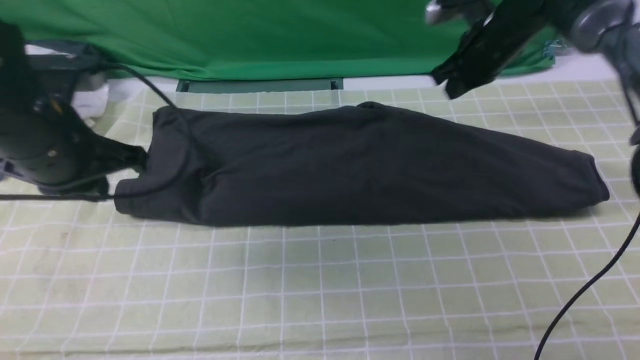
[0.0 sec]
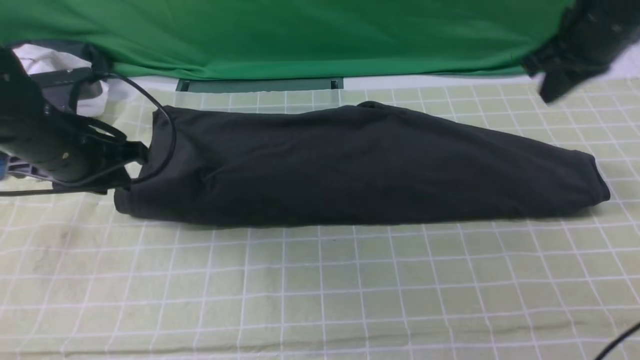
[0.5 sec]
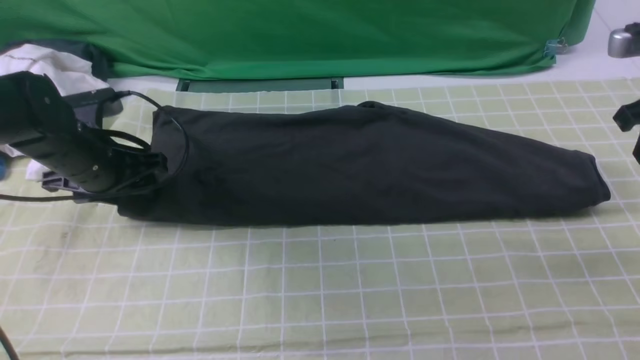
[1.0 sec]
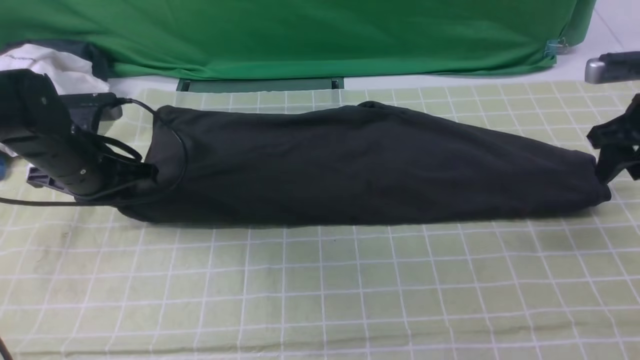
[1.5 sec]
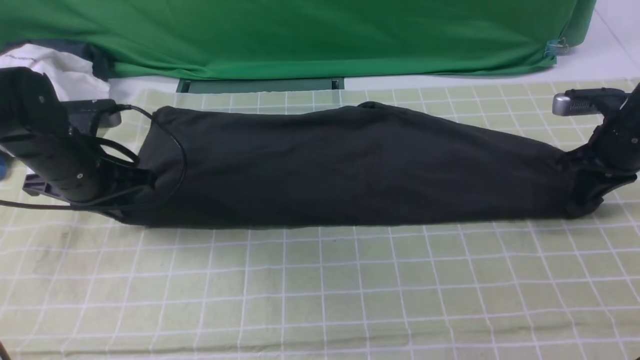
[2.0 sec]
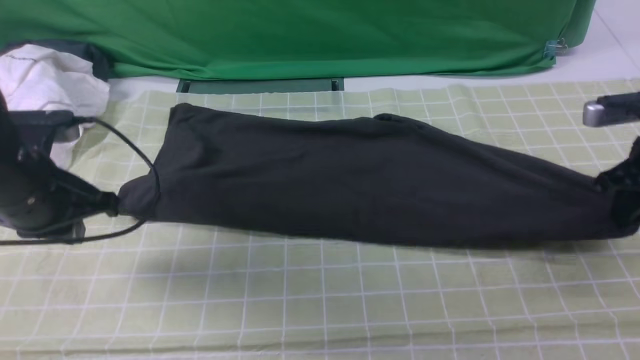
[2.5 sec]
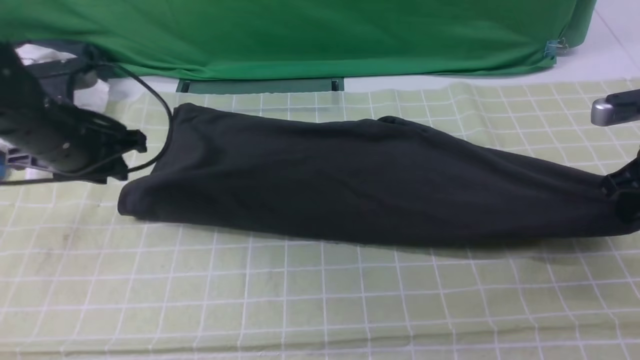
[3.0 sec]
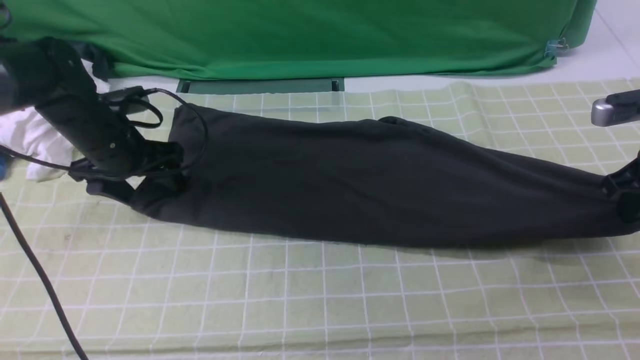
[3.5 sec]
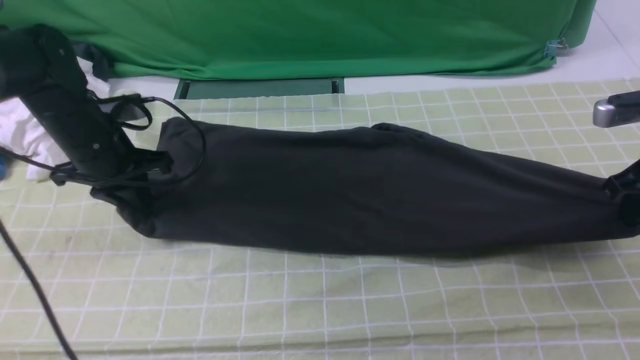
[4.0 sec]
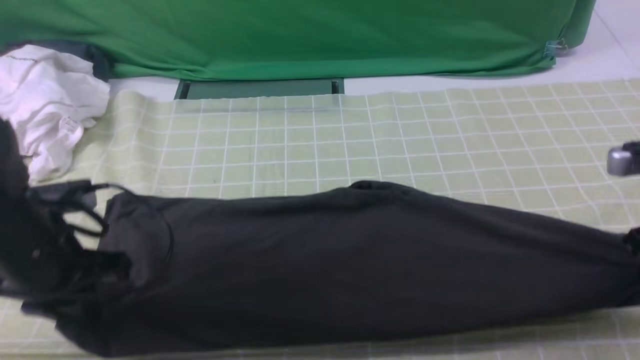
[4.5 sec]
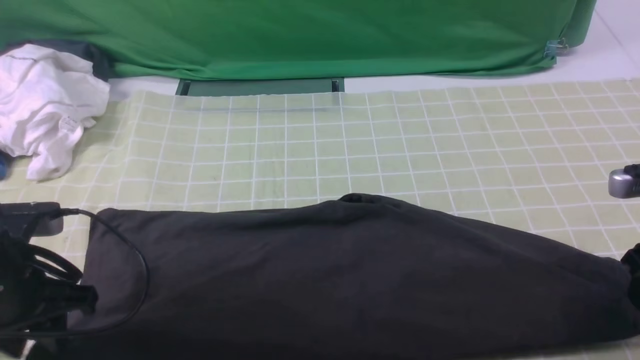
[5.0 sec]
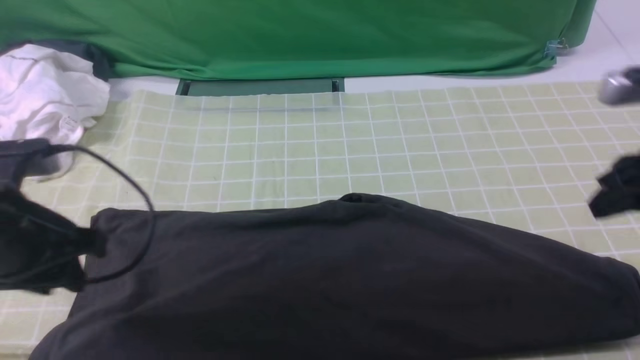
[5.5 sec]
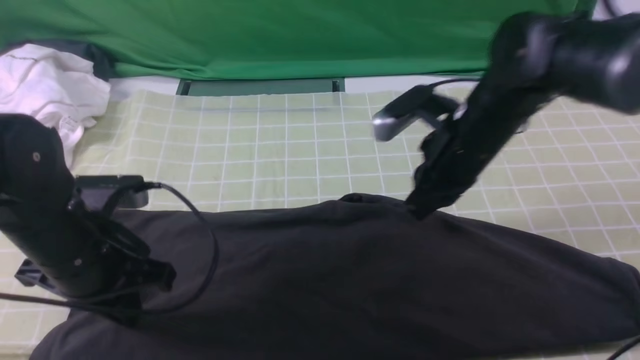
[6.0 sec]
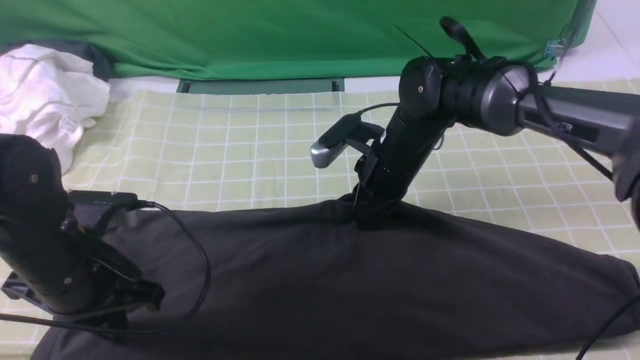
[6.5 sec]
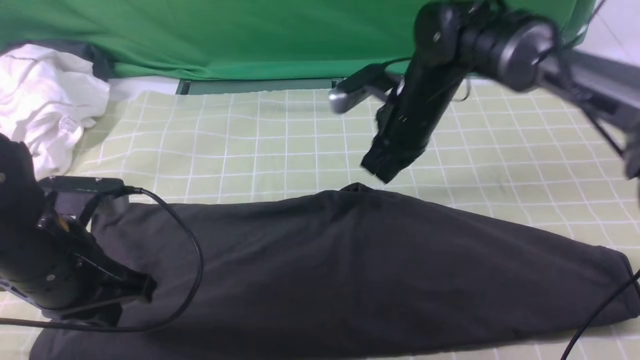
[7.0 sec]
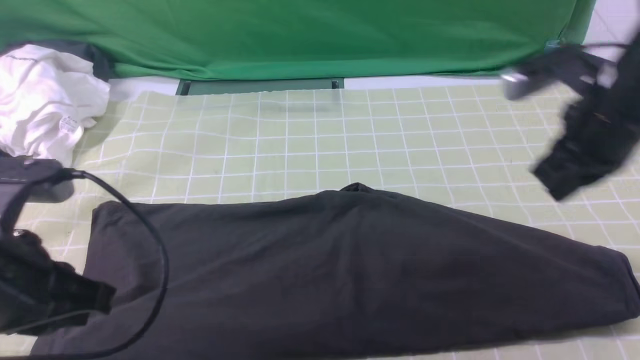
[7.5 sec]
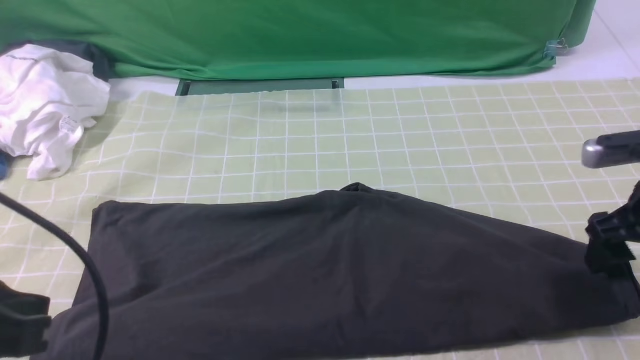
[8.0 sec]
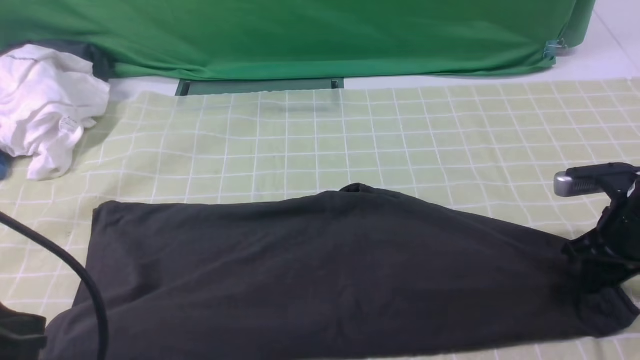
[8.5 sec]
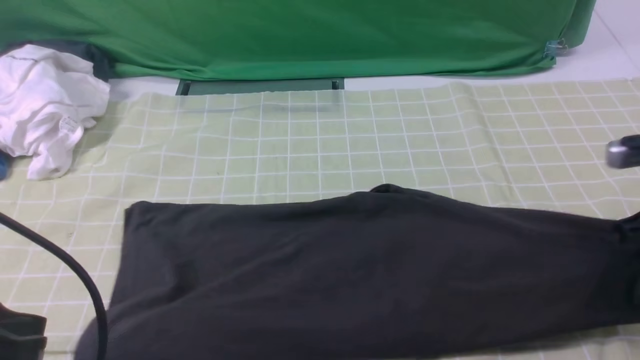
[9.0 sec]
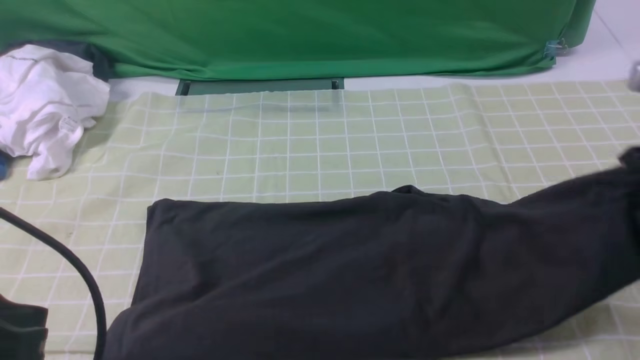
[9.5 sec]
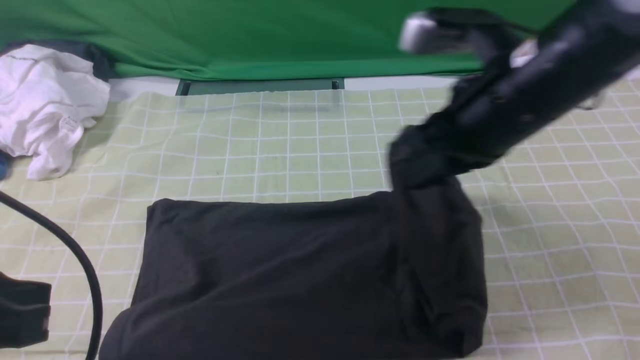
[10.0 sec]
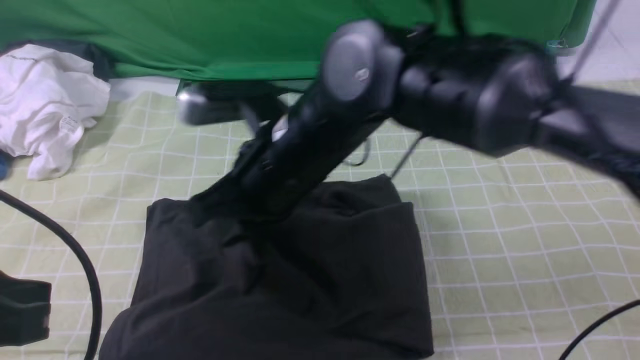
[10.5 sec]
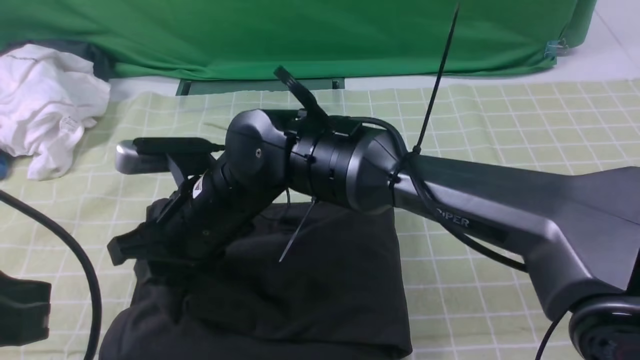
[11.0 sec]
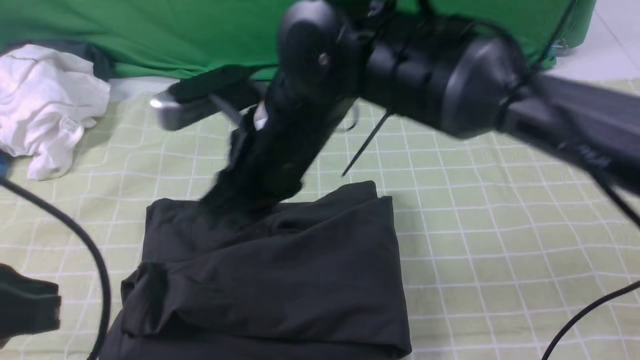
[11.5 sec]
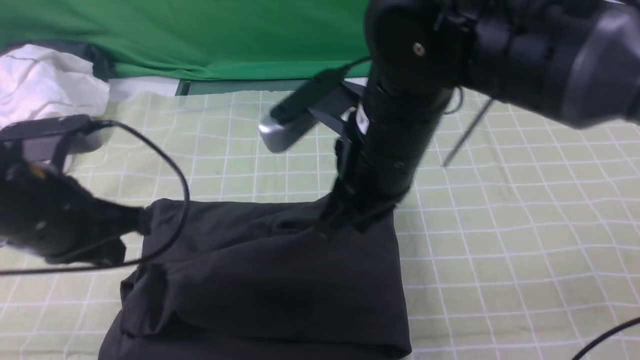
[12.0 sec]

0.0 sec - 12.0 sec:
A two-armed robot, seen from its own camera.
Step, 0.0 sec - 8.0 sec: use the right arm to clamp the right edge of the fabric.
Step, 9.0 sec - 11.0 sec: use the right arm to drag the right edge of the fabric to the left and folds it over the left edge.
0.0 sec - 2.0 sec: The left gripper heads downward, covering approximately 10 cm, and opens, then closes once more; the right gripper moves to the right, backward and downward, some 20 cm, and opens, then closes again.
2.0 sec - 4.0 sec: The right gripper shifts approximately 10 cm backward, while the left gripper moves roughly 5 cm forward and comes back, and opens, then closes again.
4.0 sec - 6.0 sec: The right gripper moves to the left, roughly 20 cm, and opens, then closes again, while the left gripper goes roughly 15 cm backward, and opens and closes again.
6.0 sec - 8.0 sec: The right gripper is displaced to the right by approximately 20 cm, and opens, while the left gripper travels backward and upward by roughly 15 cm.
8.0 sec - 10.0 sec: The right gripper shifts approximately 25 cm to the left and upward, and closes.
10.0 sec - 12.0 sec: The right gripper moves to the left, approximately 10 cm, and opens, then closes again, while the left gripper heads forward and downward, covering roughly 15 cm.

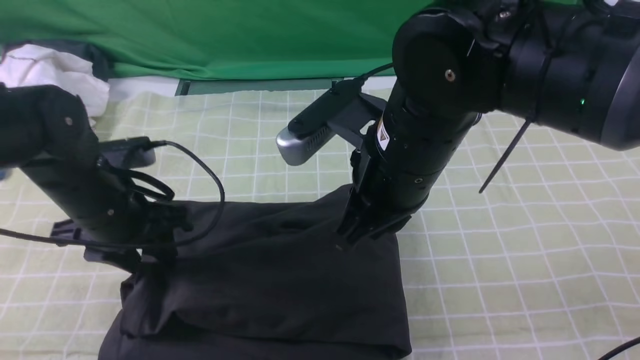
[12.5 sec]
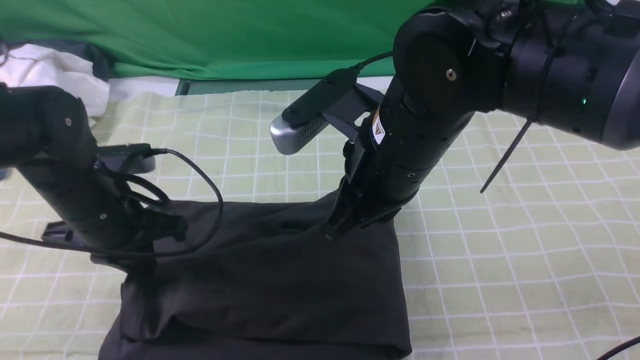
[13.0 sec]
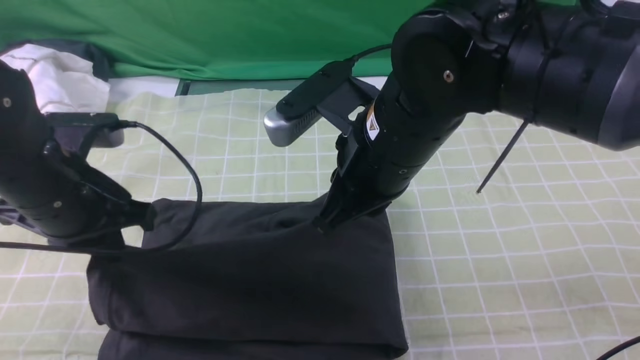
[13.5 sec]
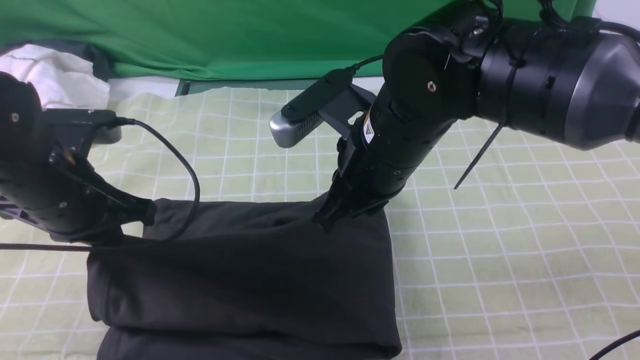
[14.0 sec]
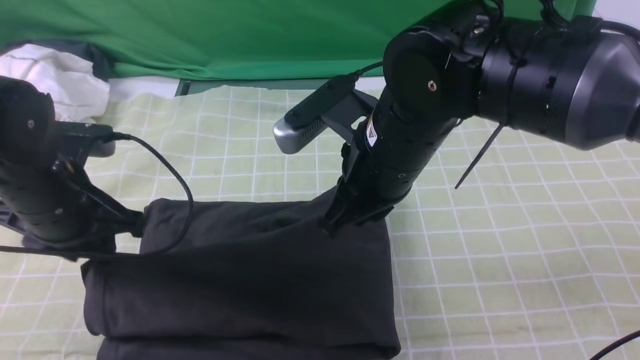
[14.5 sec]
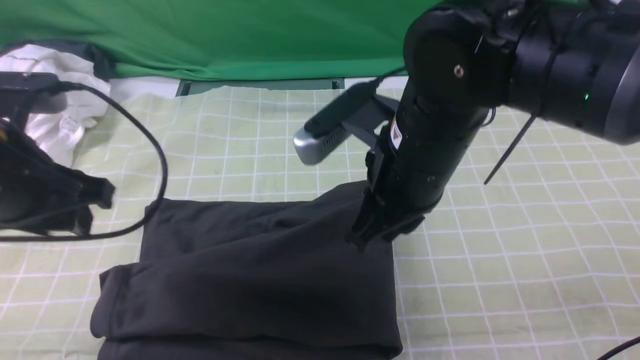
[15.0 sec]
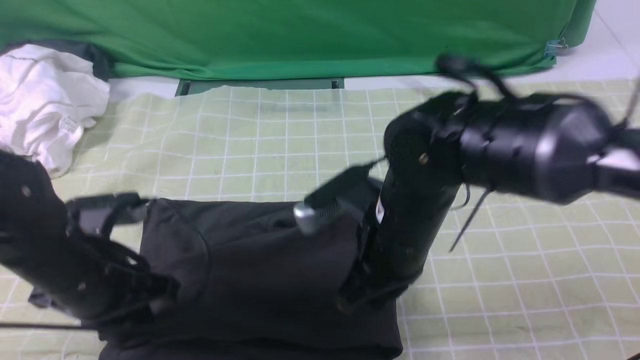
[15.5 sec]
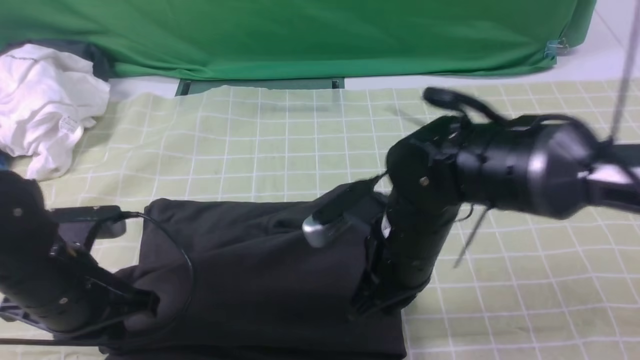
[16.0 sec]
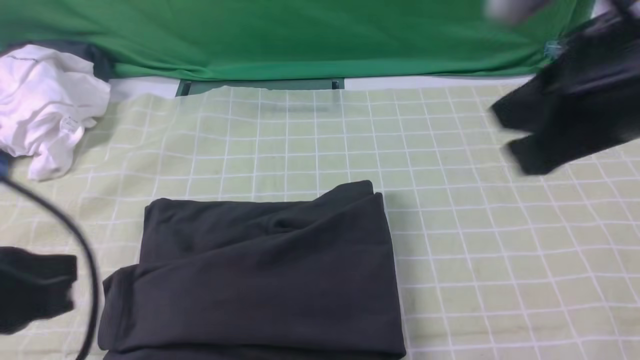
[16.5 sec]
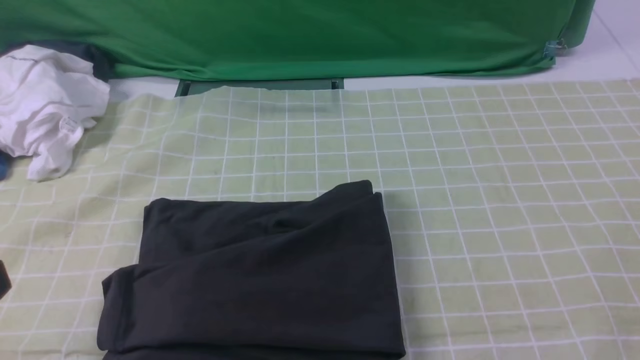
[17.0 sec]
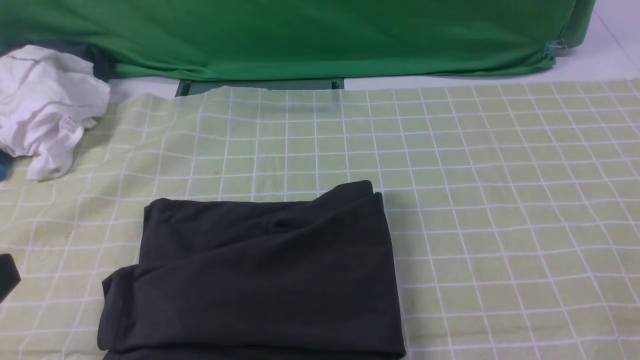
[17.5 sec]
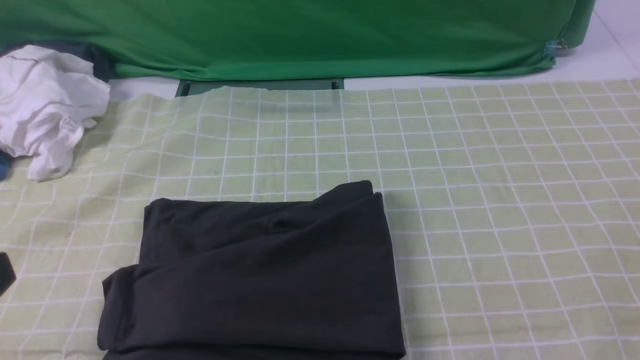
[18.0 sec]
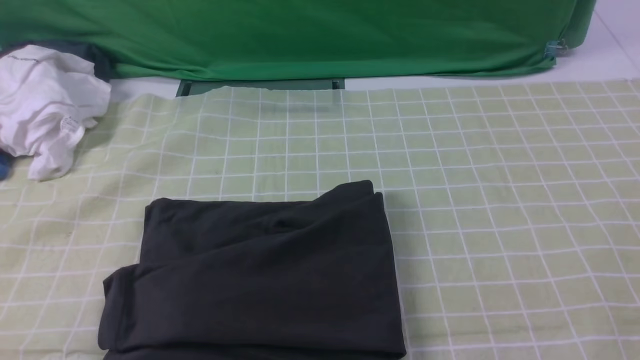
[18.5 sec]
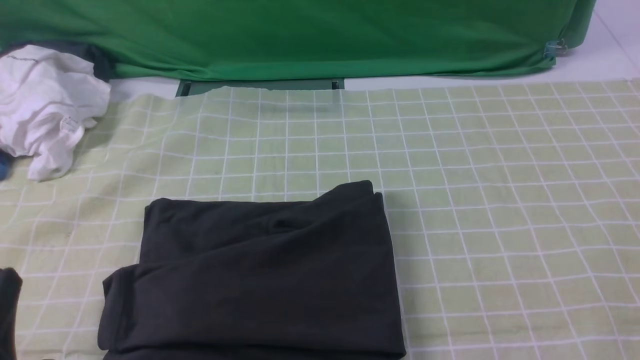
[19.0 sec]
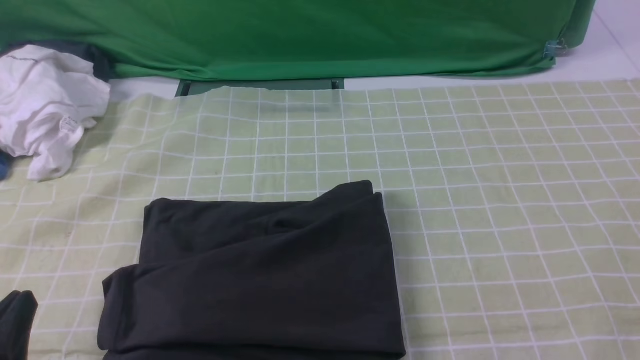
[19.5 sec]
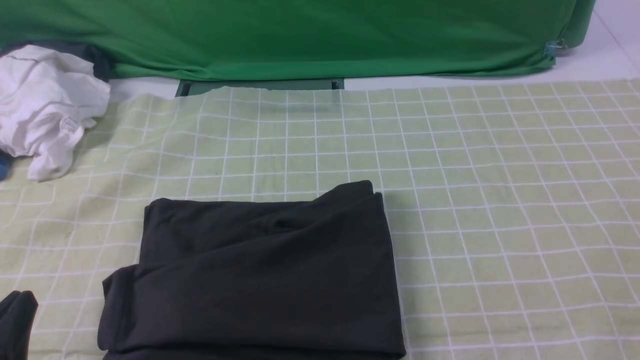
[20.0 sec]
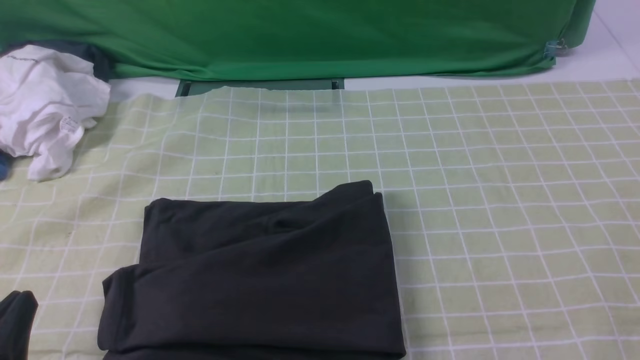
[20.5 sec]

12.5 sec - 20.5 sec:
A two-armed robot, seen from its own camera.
12.5 sec - 14.5 sec: The left gripper ends up some 5 cm from where it was, and closes, then opens again.
14.5 sec - 16.5 sec: The left gripper goes about 20 cm backward and upward, and closes its fingers; the right gripper is displaced to the right, upward and backward by roughly 20 cm.
16.5 sec - 18.5 sec: The left gripper heads backward, covering roughly 5 cm. Meanwhile the right gripper heads backward and to the right, covering approximately 25 cm.
18.5 sec - 20.5 sec: The left gripper travels downward by some 10 cm.
